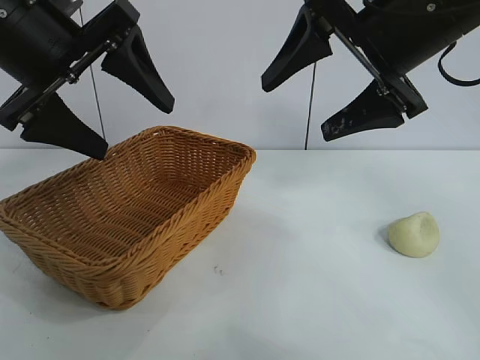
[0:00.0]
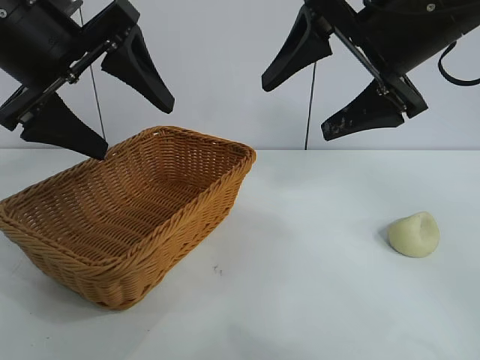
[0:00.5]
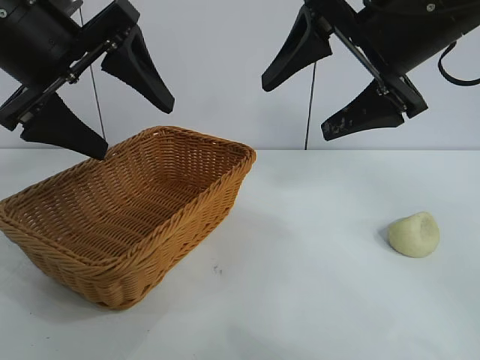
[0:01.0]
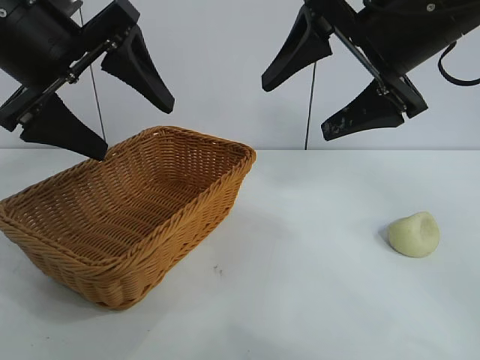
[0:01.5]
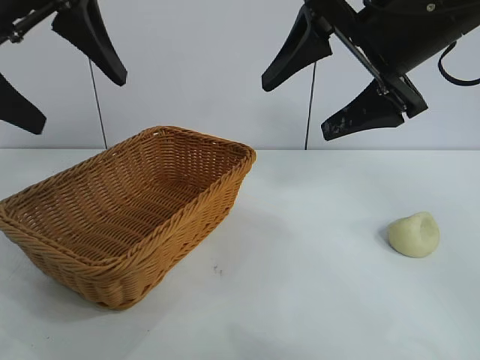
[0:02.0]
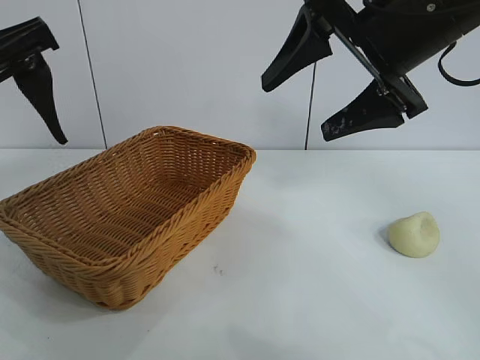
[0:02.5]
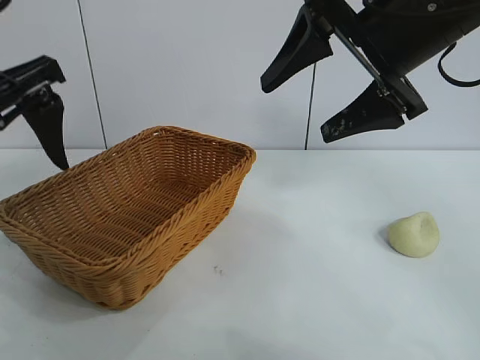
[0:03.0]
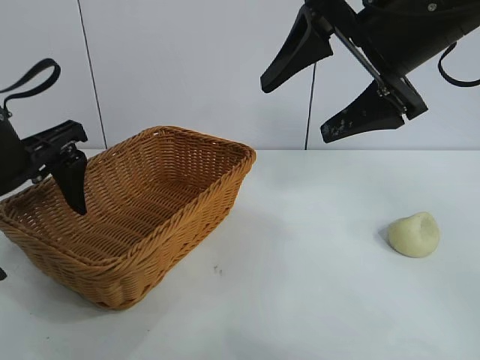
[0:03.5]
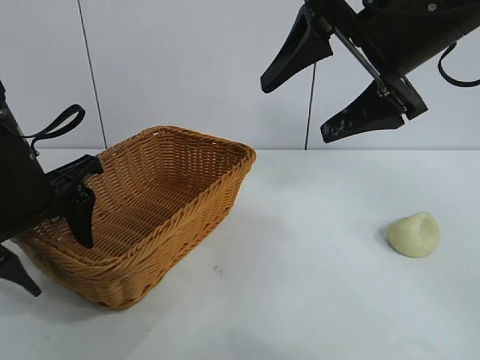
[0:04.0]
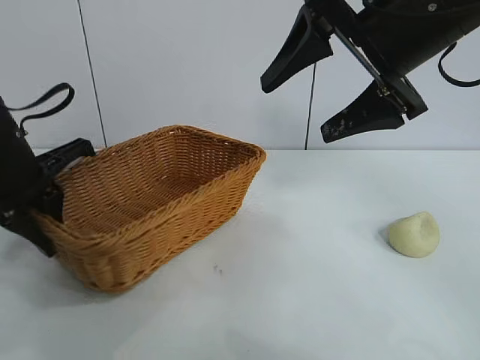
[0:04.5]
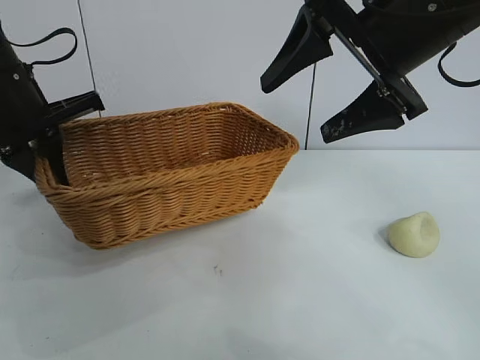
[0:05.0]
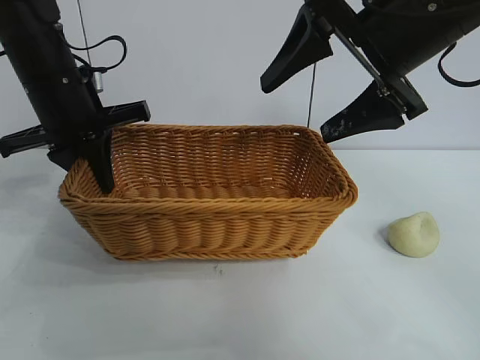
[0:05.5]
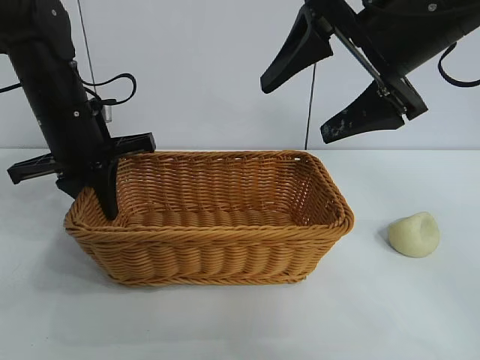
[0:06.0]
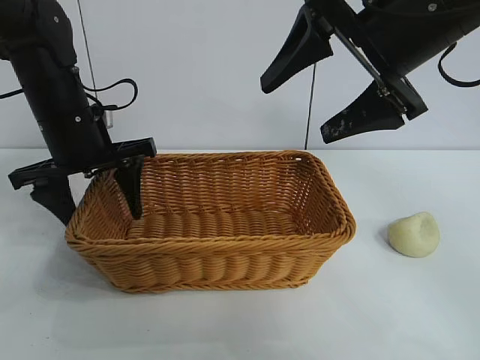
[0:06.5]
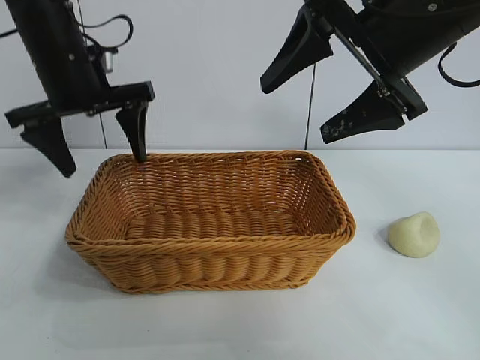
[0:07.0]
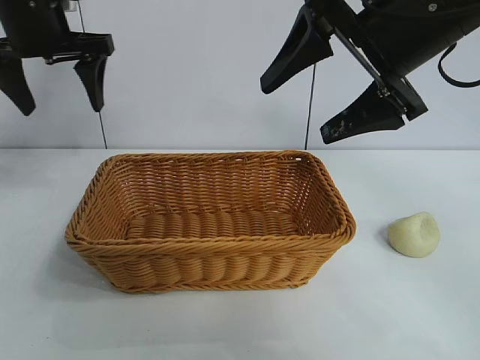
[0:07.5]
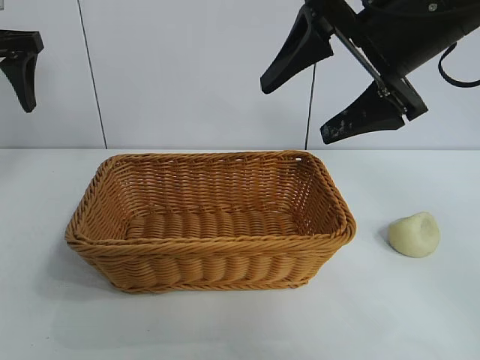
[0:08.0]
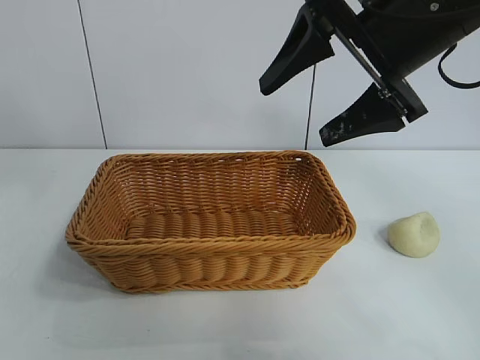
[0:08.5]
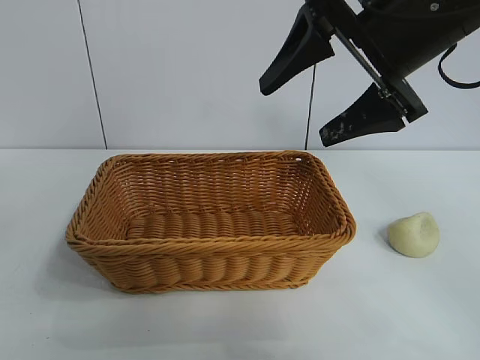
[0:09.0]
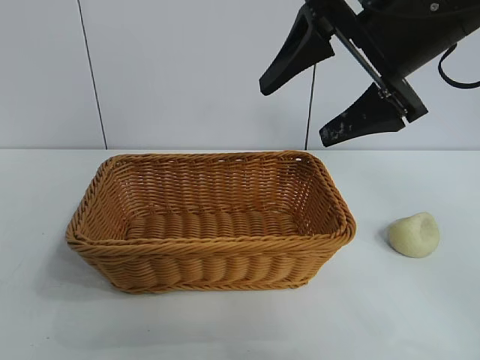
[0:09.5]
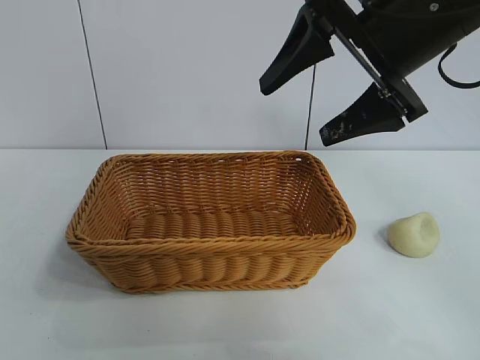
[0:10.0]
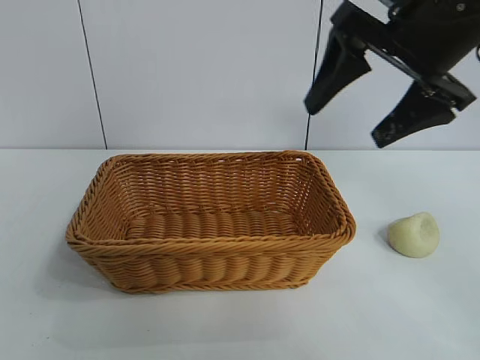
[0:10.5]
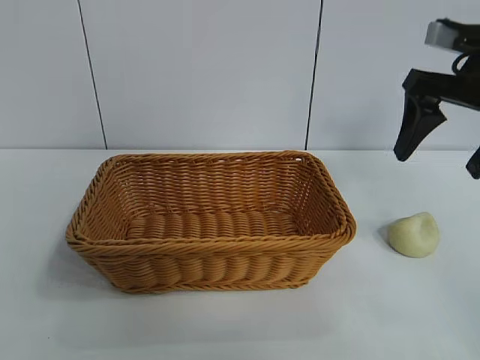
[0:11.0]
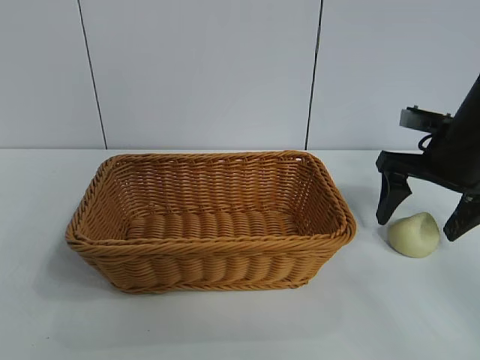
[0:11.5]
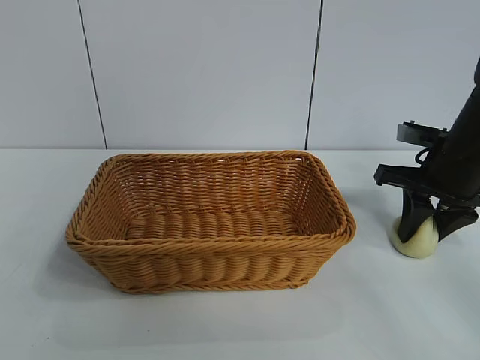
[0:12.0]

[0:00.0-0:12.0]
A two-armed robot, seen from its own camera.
Task of the whole recording: pick up the egg yolk pastry and put it into the basket.
Step, 0:01.5 to 0:04.0: Grasp the basket with left gripper.
Step, 0:04.5 to 0:06.0: Place the basket in the center of view with left gripper.
Step, 0:06.5 to 0:12.0: Grasp egg yolk pastry with right gripper.

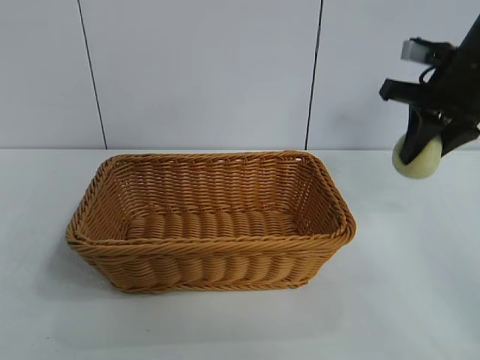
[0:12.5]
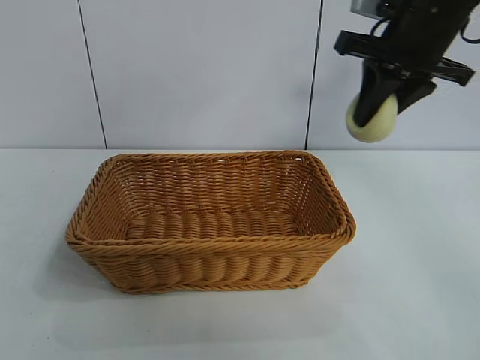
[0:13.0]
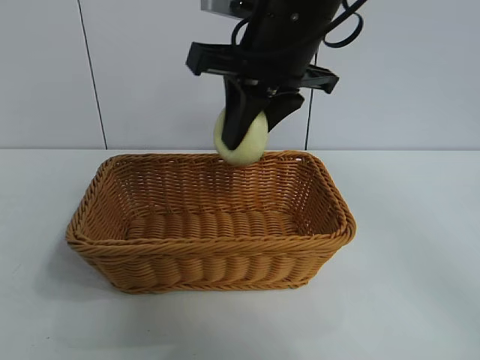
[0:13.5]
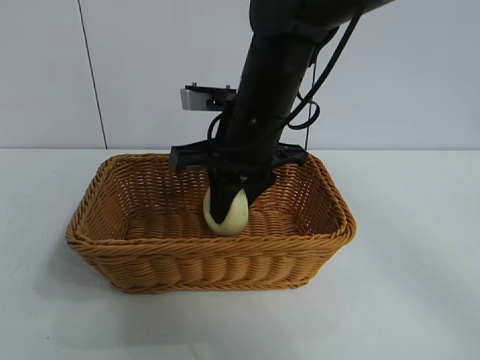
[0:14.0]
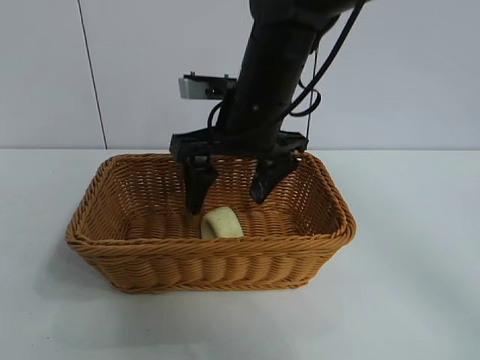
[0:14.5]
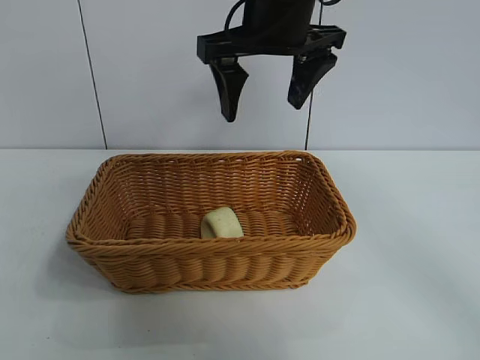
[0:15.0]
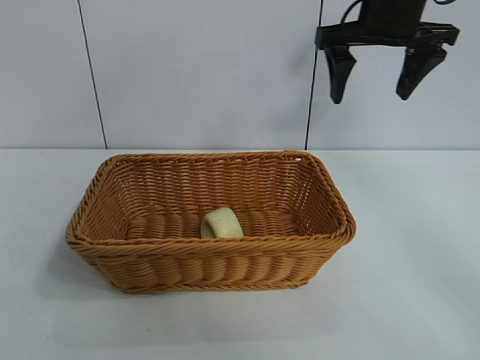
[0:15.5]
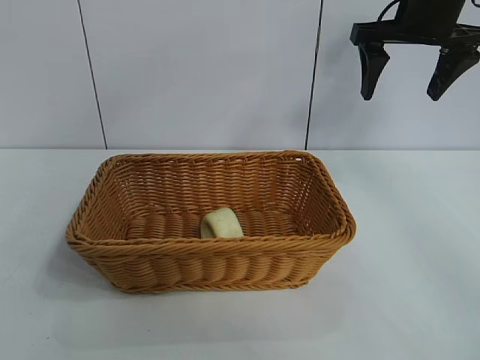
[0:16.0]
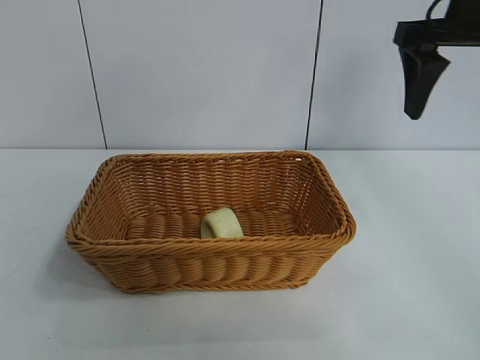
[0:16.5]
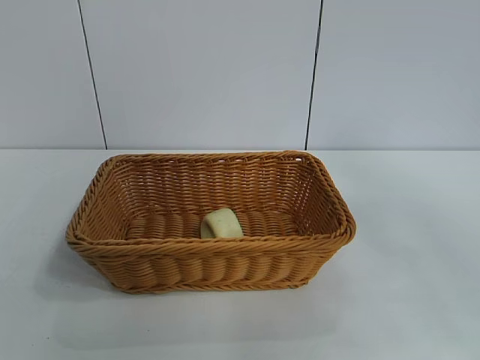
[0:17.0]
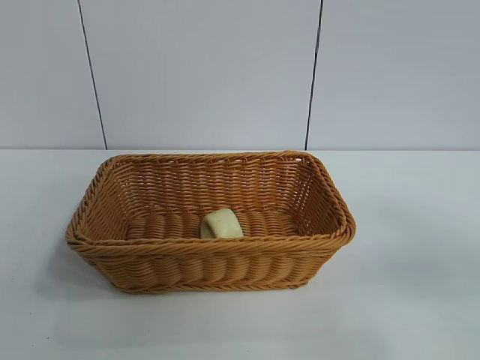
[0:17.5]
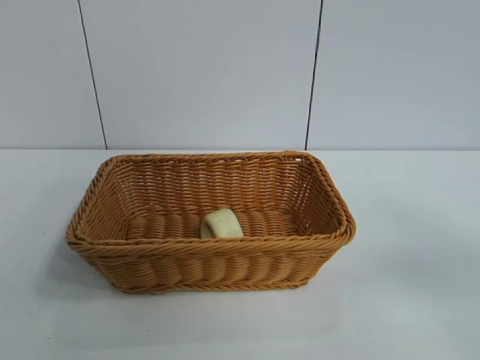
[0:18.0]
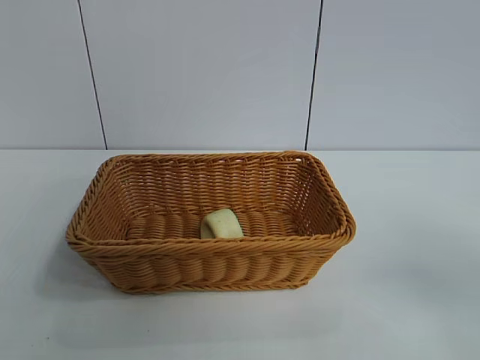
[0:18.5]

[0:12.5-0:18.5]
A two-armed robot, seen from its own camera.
Task of the whole recording: pick up the egg yolk pastry and put it into the basket.
Step, 0:12.5 to 0:14.0: Place the egg yolk pastry in the basket with right gripper.
